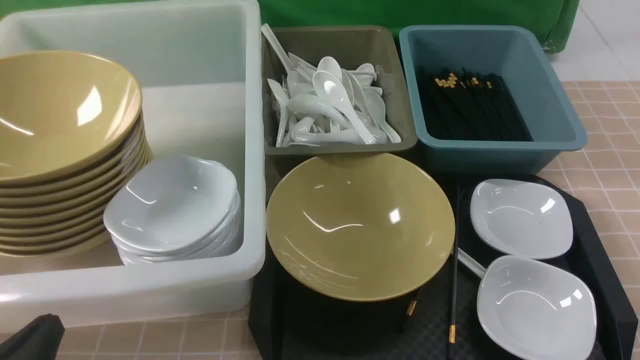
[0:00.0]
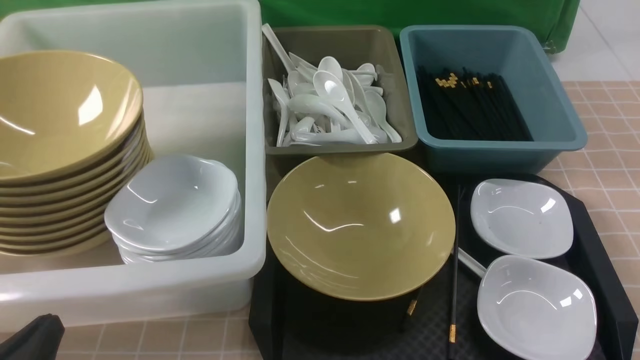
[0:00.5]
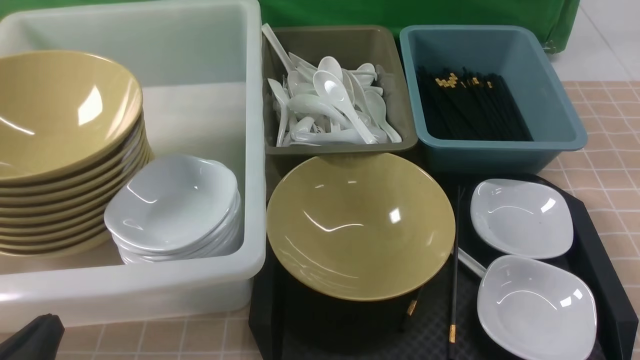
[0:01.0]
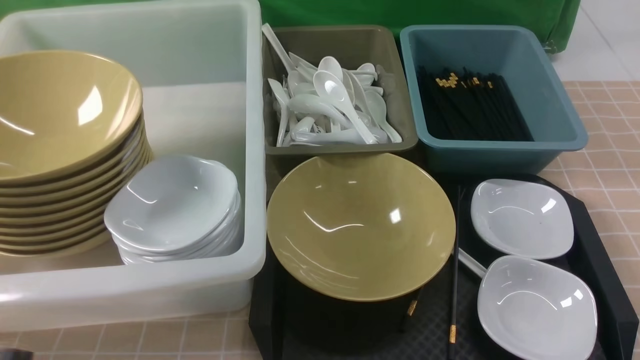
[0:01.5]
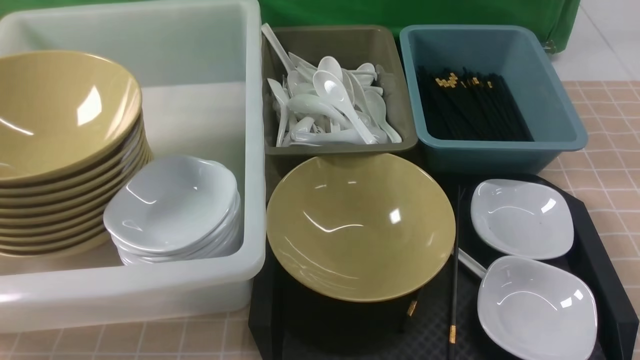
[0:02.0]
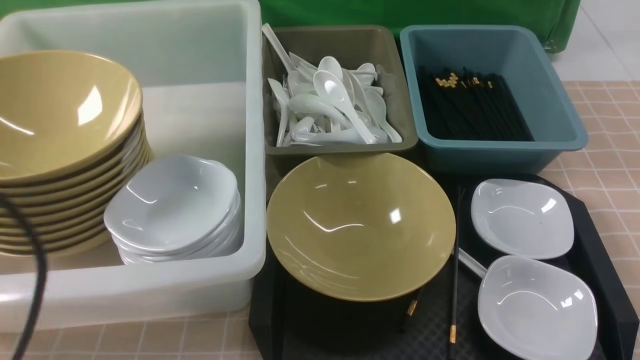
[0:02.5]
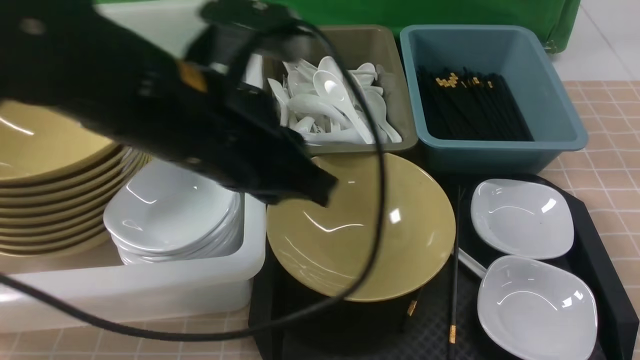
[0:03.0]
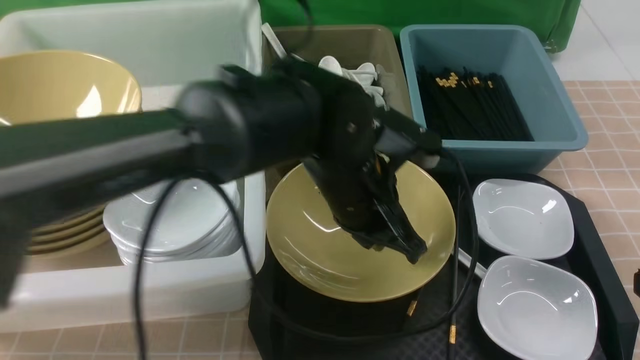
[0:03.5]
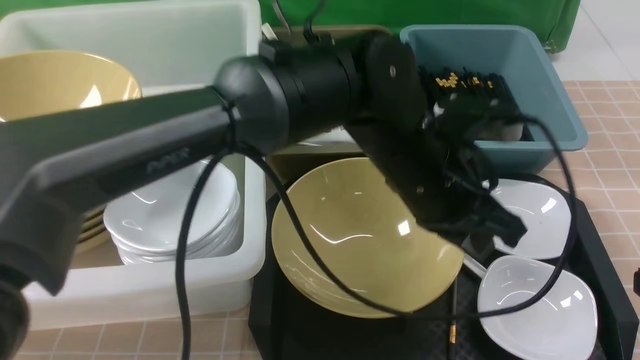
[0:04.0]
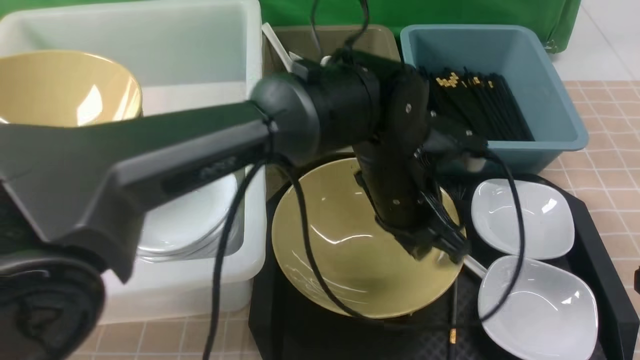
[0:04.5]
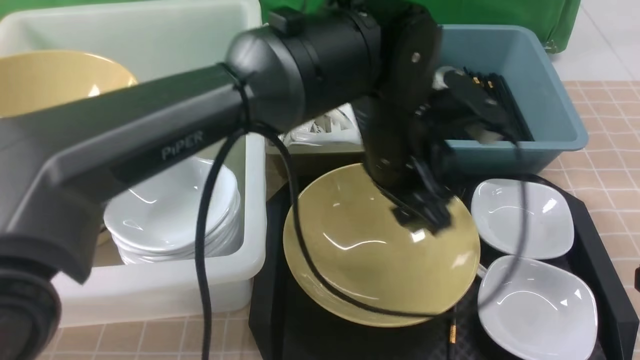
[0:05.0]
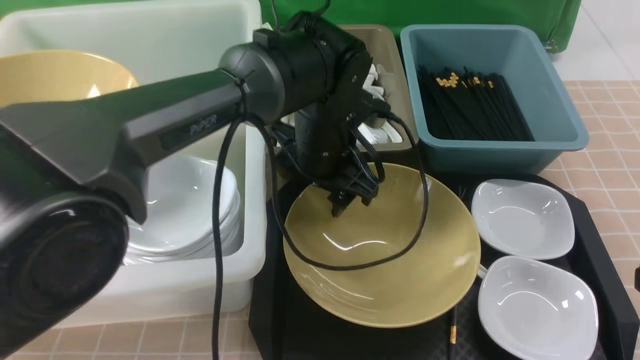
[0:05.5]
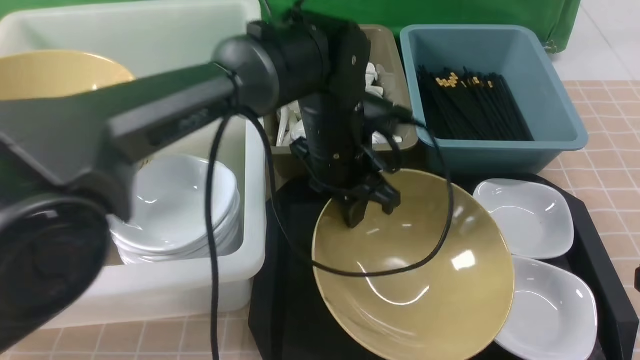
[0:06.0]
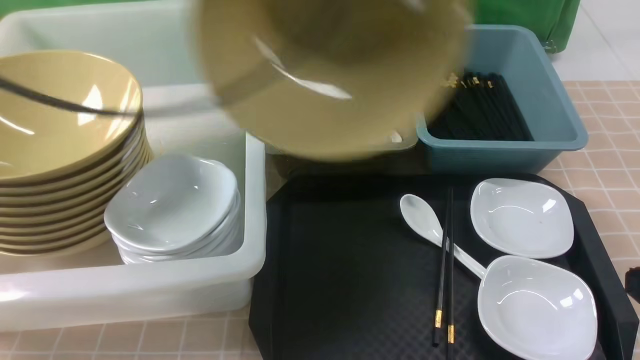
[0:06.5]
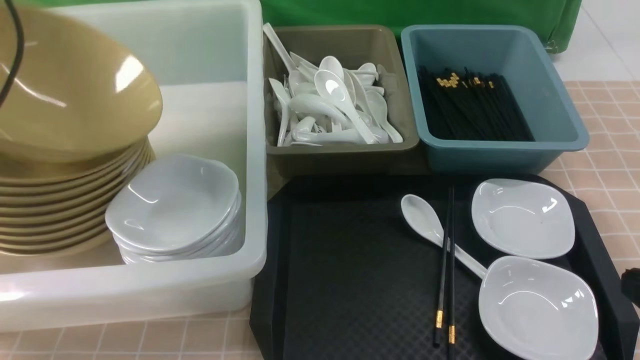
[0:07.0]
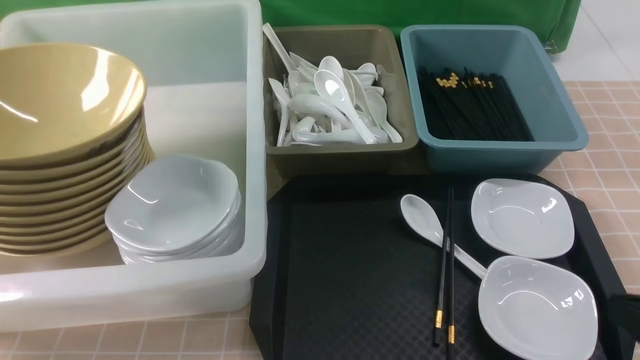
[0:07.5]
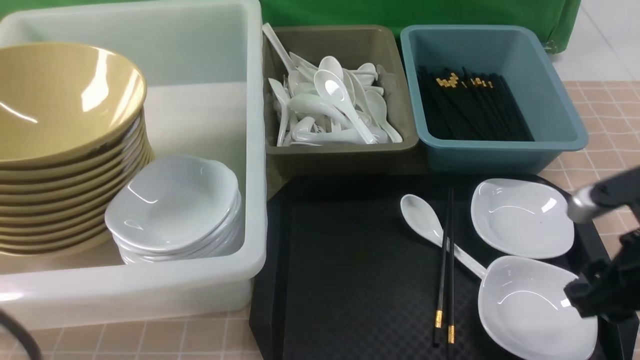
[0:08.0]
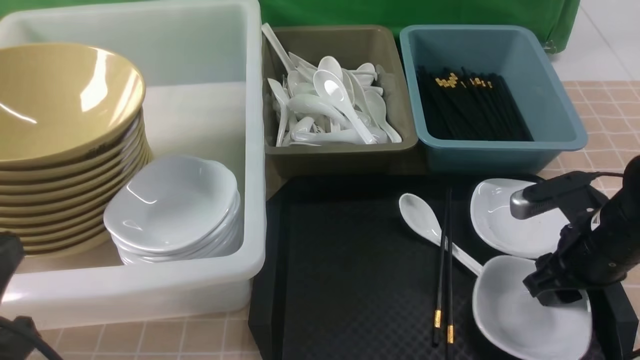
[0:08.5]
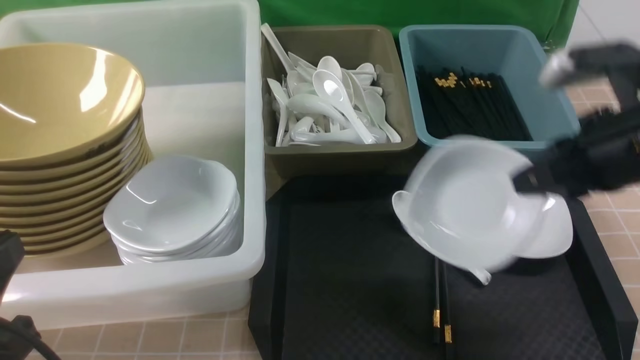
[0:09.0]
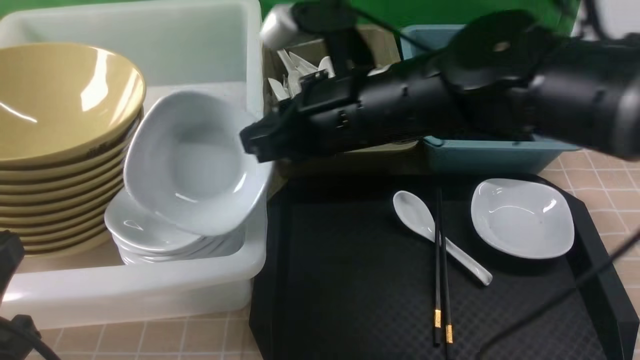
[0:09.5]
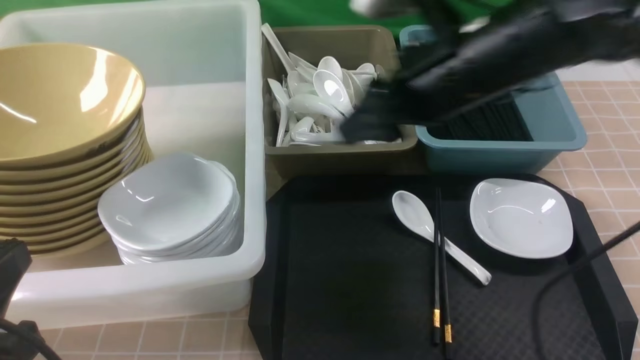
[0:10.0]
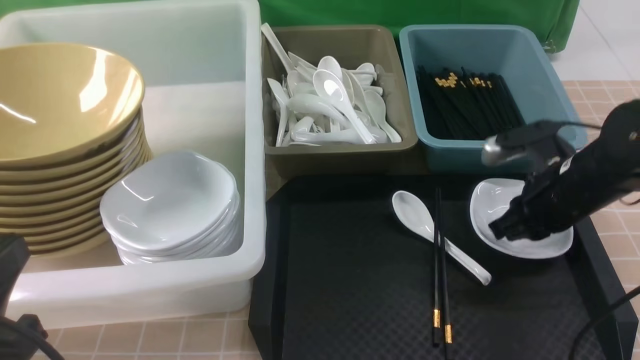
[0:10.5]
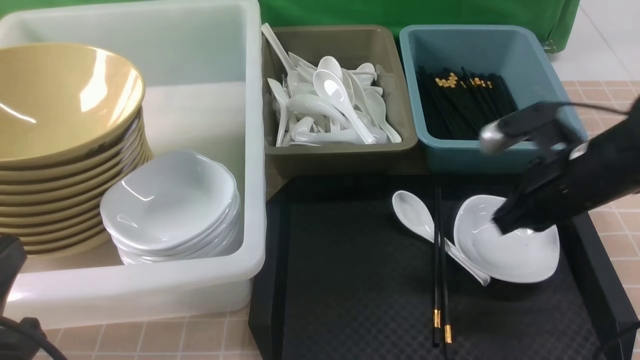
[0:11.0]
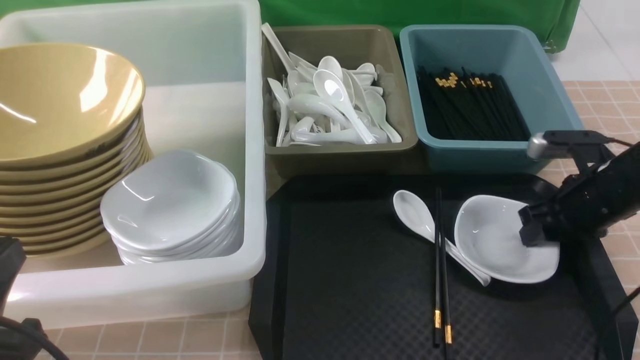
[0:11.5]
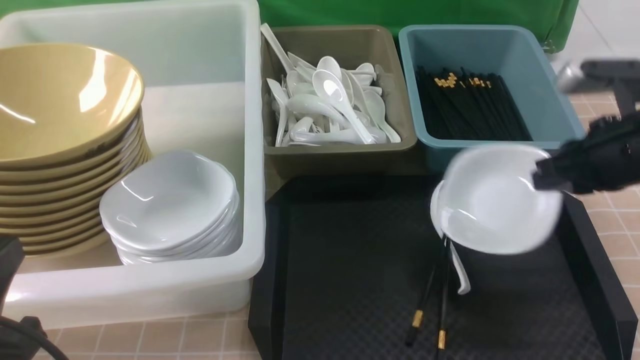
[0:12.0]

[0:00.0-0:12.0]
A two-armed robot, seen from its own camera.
Task of the whole recording: on brown table put chopsticks spoon bowls plates into blue grey white boxes.
Step, 0:00.0 to 0:05.5: use the left arm to grab the yellow noodle bowl on the left.
Step, 0:06.5 to 0:07.5: use the left arm to put the noodle bowl into the large storage box on the left.
Step, 0:08.0 to 0:08.5: use the right arm to grab the plate.
Step, 0:09.0 to 0:09.5: use the right arm to put the plate into the large storage box on the left.
Step, 0:10.5 to 0:11.5: use the right arm to grab the plate.
0:00.0 to 0:02.0: The left gripper is displaced upward by about 15 cm.
0:02.0 to 0:04.0: The left gripper heads to the right and forward, covering approximately 40 cm. The right gripper heads forward and downward, covering roughly 10 cm, and closes.
0:04.0 to 0:06.0: The left gripper goes approximately 10 cm forward and to the left, and opens, then closes once more.
0:06.0 to 0:08.0: The right gripper heads forward, covering roughly 10 cm, and opens its fingers; the left gripper shifts some 35 cm backward and to the left, and opens and closes again.
0:08.0 to 0:10.0: The right gripper moves to the left, forward and upward, roughly 20 cm, and closes, then opens again. Meanwhile the left gripper is displaced downward by some 10 cm.
0:10.0 to 0:12.0: The right gripper heads to the right, covering about 10 cm, and closes up.

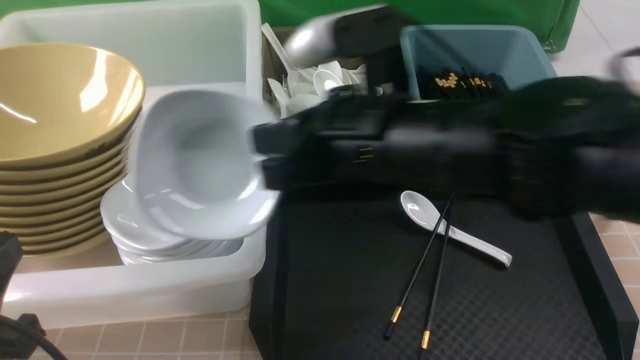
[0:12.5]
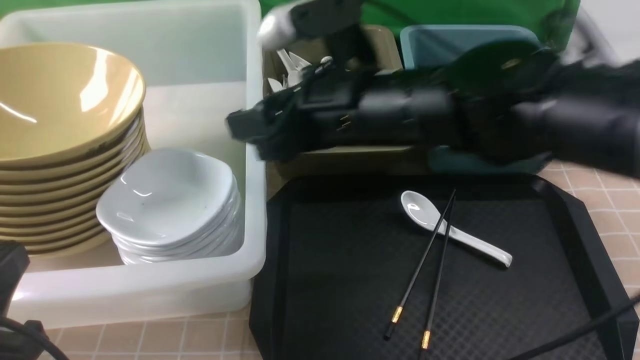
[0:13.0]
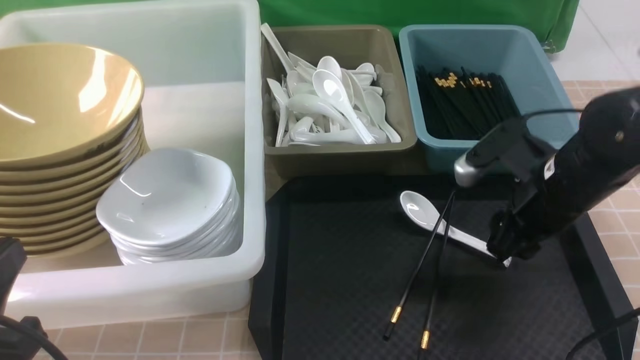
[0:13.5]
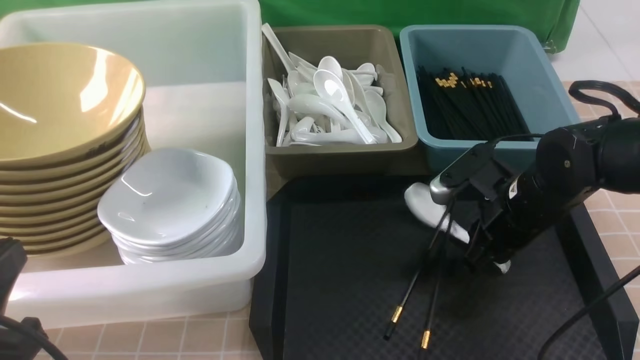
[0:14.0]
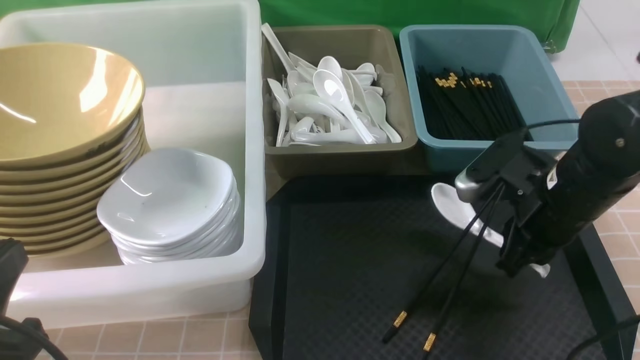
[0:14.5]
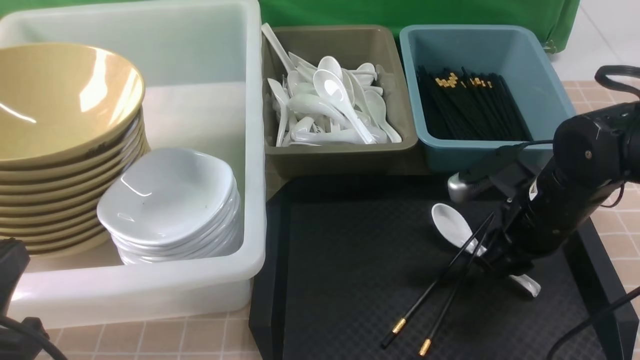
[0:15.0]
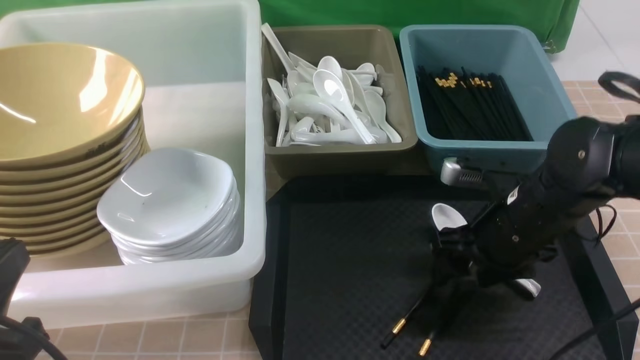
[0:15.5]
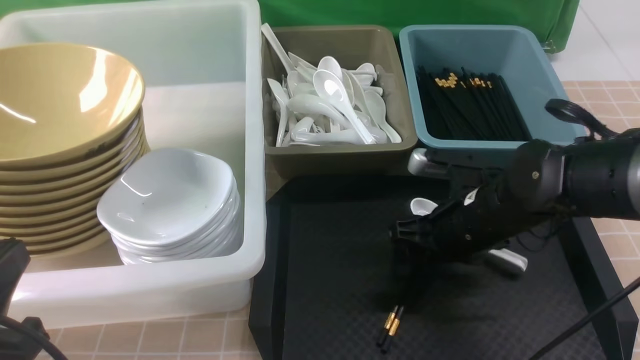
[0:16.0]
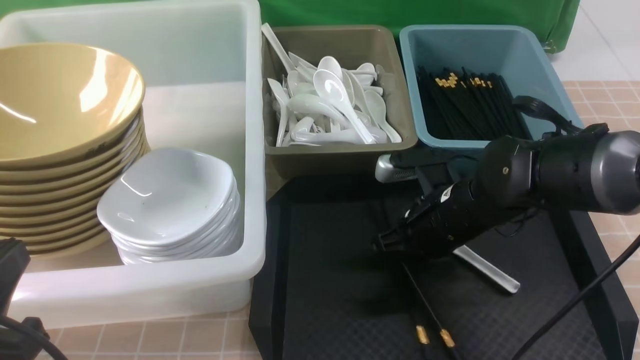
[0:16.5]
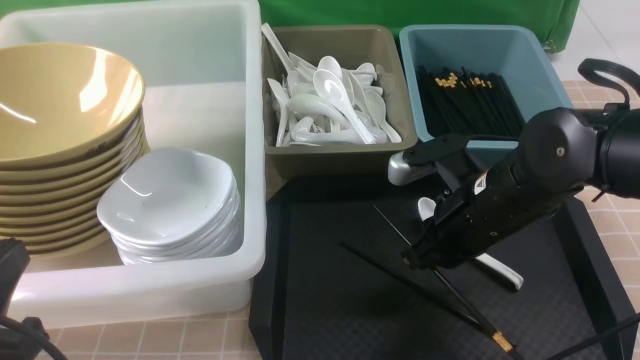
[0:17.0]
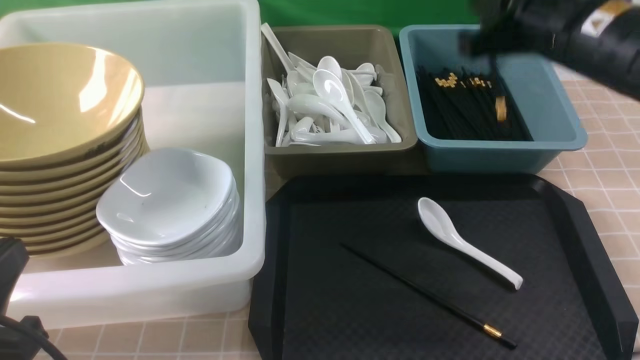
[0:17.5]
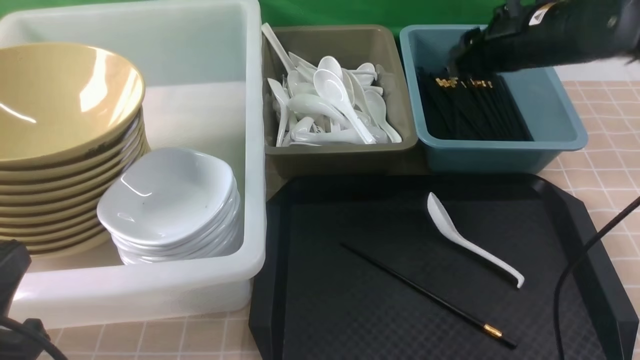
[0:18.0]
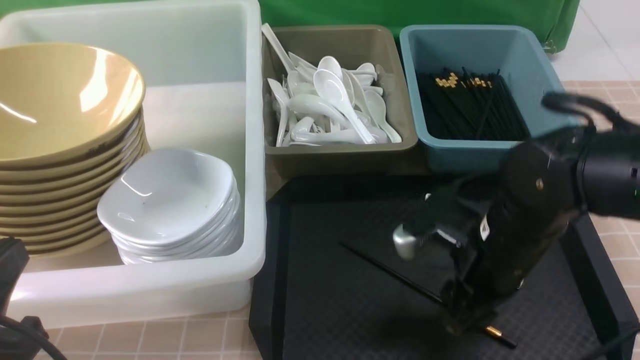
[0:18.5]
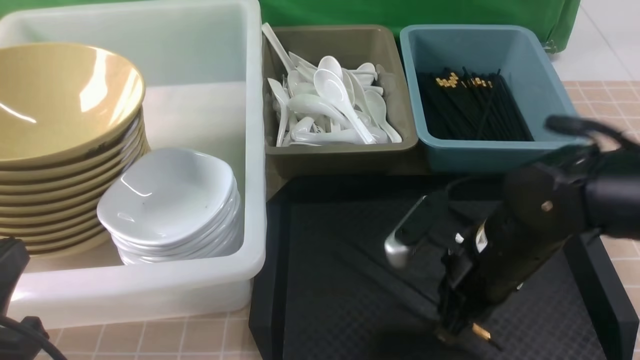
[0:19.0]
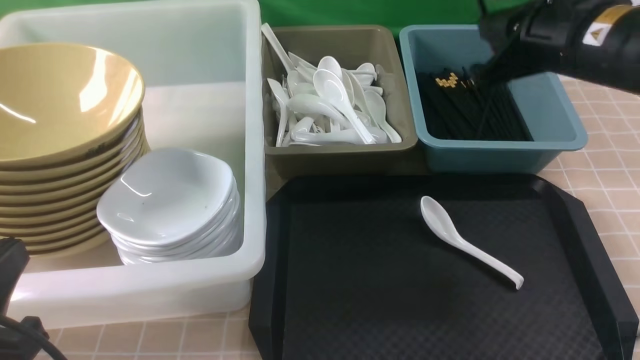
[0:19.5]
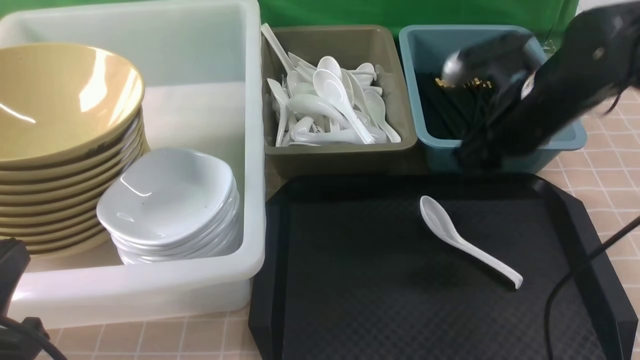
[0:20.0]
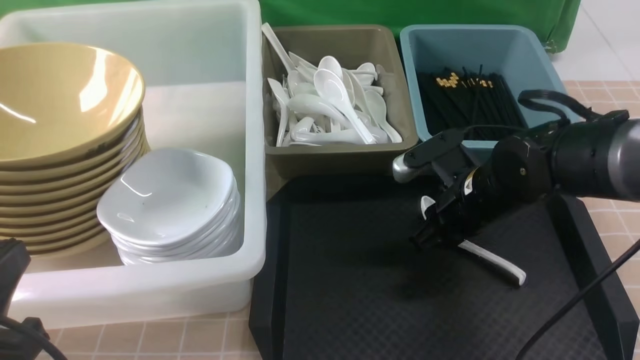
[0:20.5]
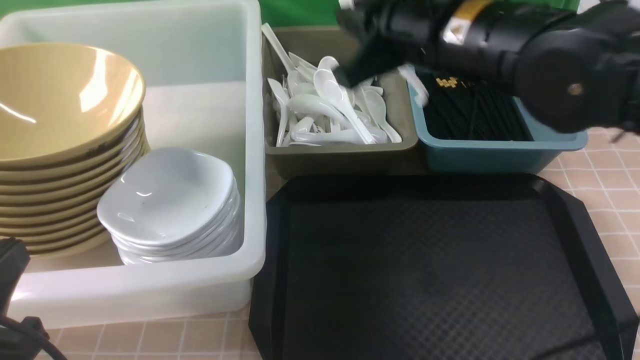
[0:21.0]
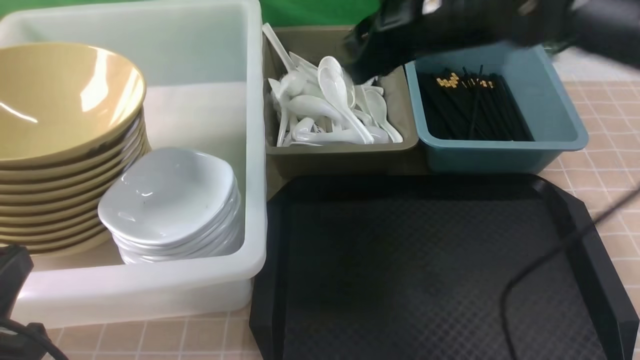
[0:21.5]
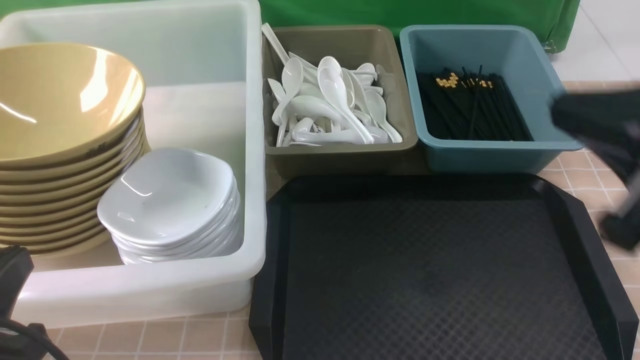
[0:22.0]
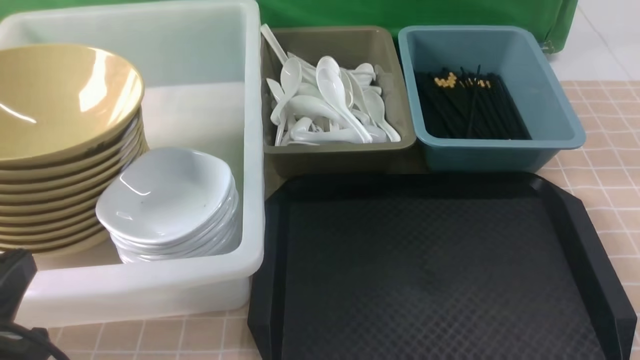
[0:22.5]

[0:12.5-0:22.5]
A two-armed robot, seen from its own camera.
Task of the whole recording: on brown table put chopsticks spoon bowls plates into blue grey white boxes.
Step, 0:13.5 to 0:17.0: use the right arm to grab a chopstick.
Step, 0:17.5 to 0:18.0: use the right arm to put a chopstick into the small storage box on the right.
Step, 0:18.5 to 0:19.0: use the right arm to grab a chopstick.
Step, 0:20.0 to 0:20.5: use the right arm to grab the soup spoon in the middle.
Step, 0:21.0 to 0:21.5: use the right arm to put the soup spoon into the small storage box in the middle.
0:12.5 to 0:14.5: The right gripper is displaced to the right and downward by about 20 cm, and opens, then closes once more.
0:14.5 to 0:16.5: The right gripper heads to the left, covering about 10 cm, and opens, then closes once more.
0:16.5 to 0:18.5: The right gripper reaches roughly 15 cm upward, then returns, and opens.
0:18.5 to 0:20.5: The right gripper moves forward, about 5 cm, and travels upward and back again, some 15 cm each way.
0:20.5 to 0:22.5: The right gripper shifts about 30 cm backward and to the right.
